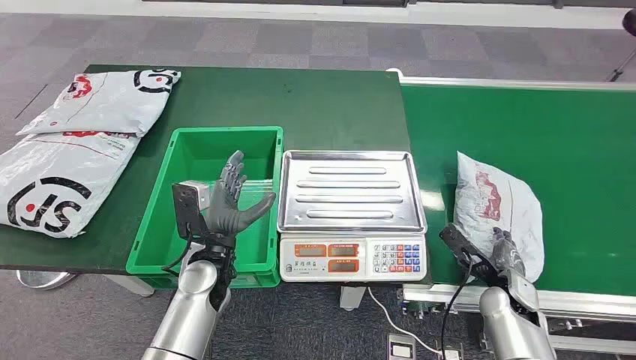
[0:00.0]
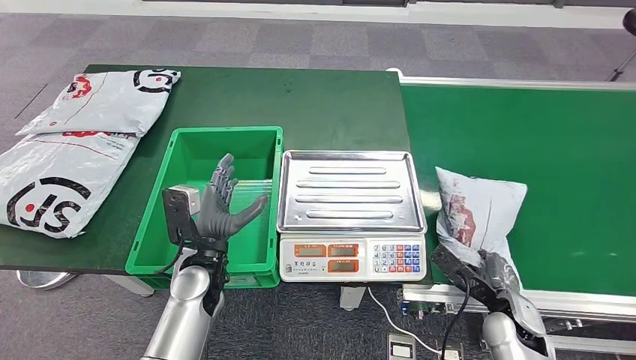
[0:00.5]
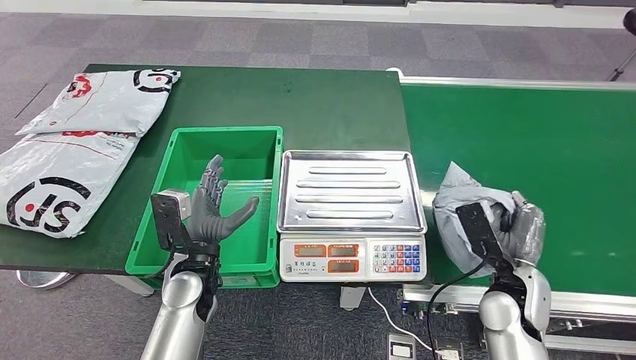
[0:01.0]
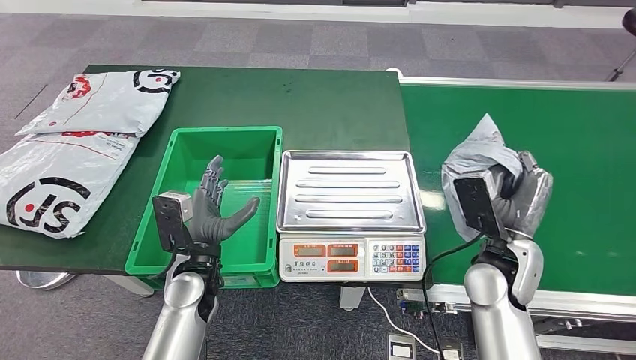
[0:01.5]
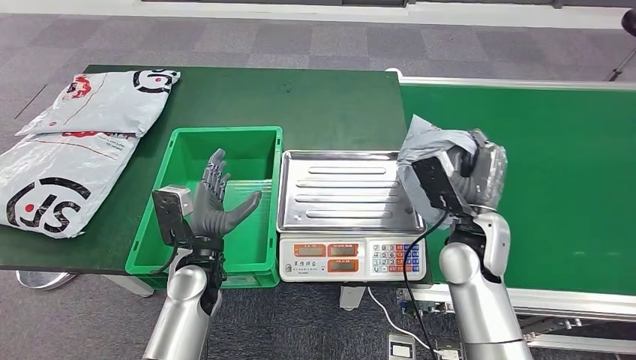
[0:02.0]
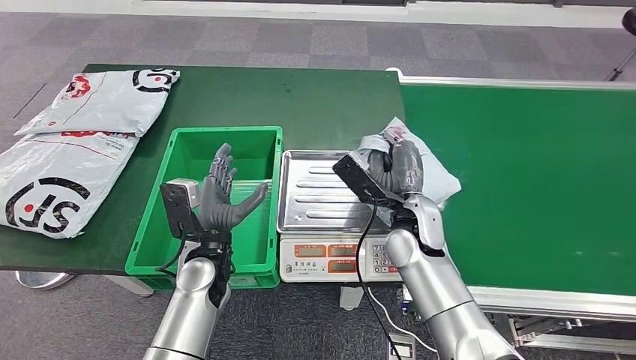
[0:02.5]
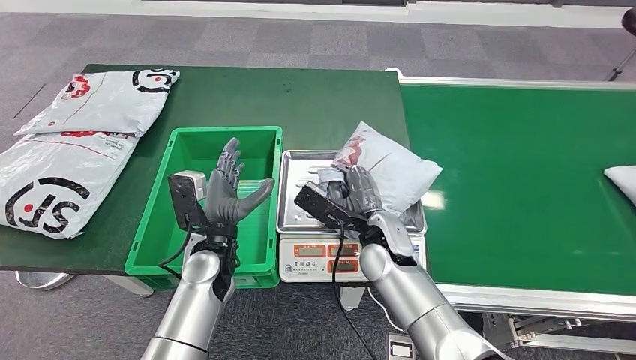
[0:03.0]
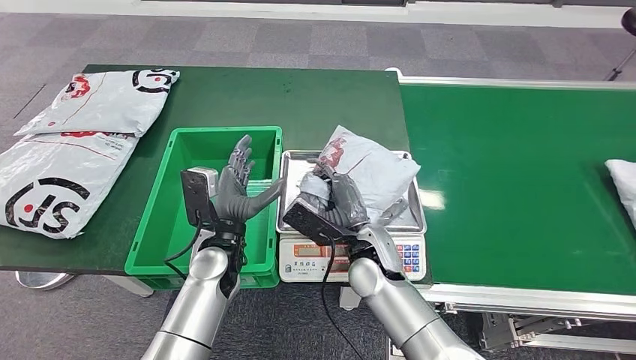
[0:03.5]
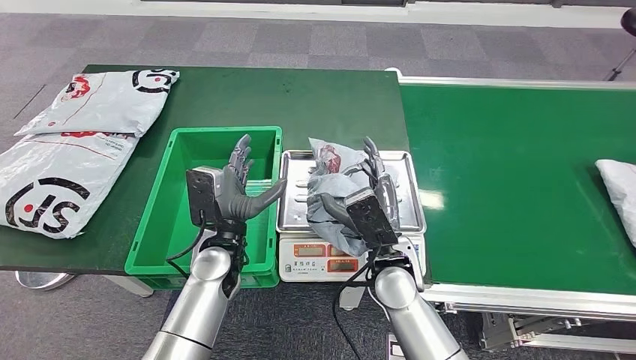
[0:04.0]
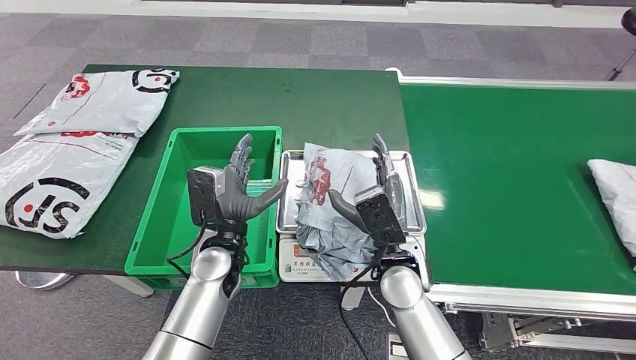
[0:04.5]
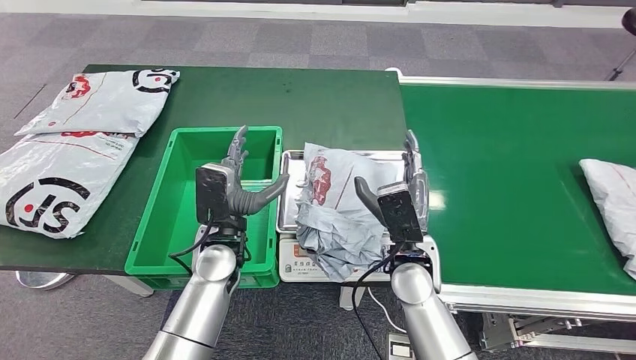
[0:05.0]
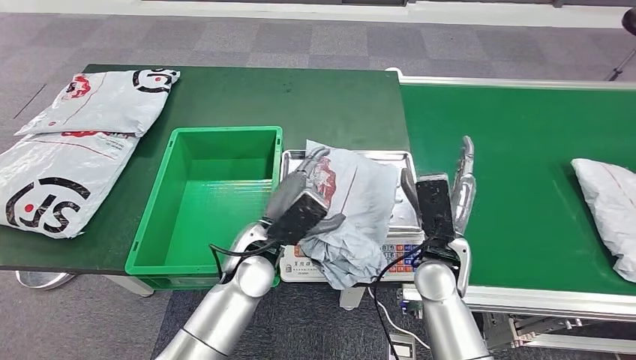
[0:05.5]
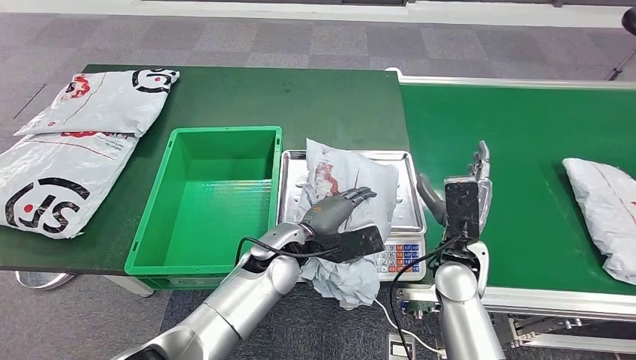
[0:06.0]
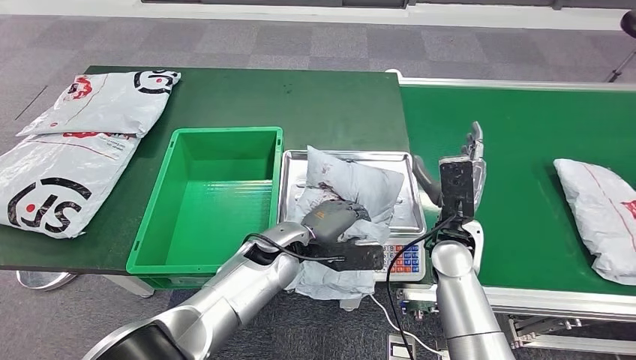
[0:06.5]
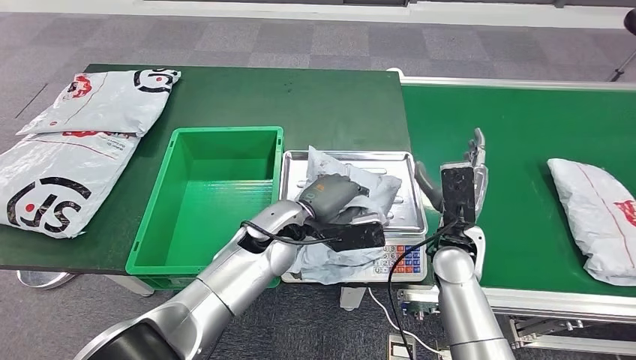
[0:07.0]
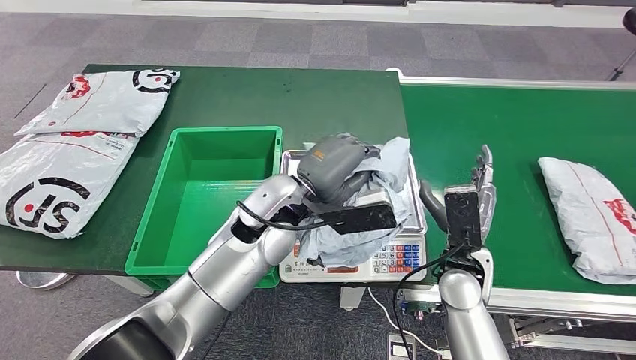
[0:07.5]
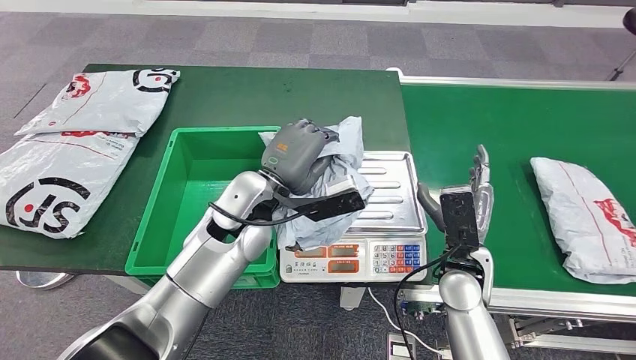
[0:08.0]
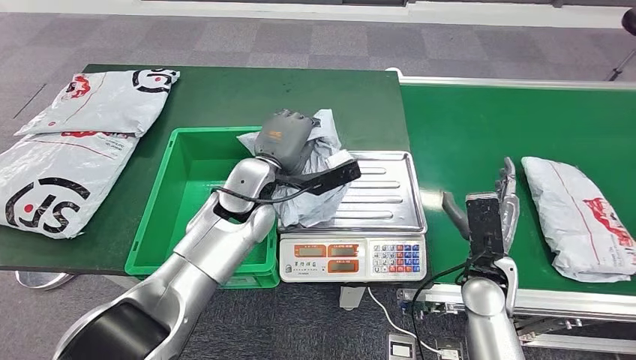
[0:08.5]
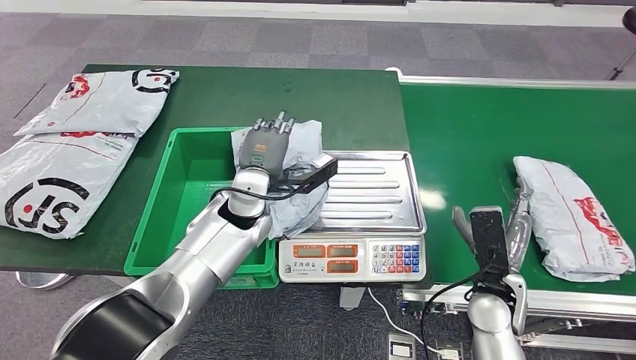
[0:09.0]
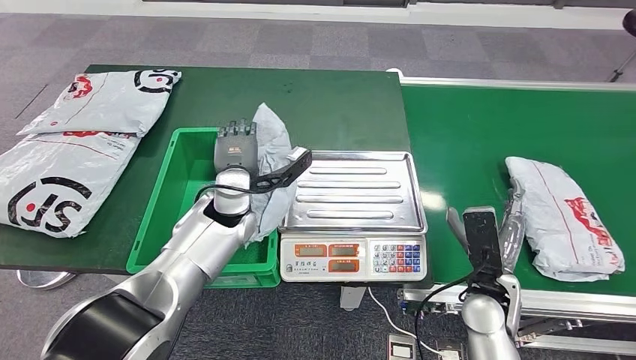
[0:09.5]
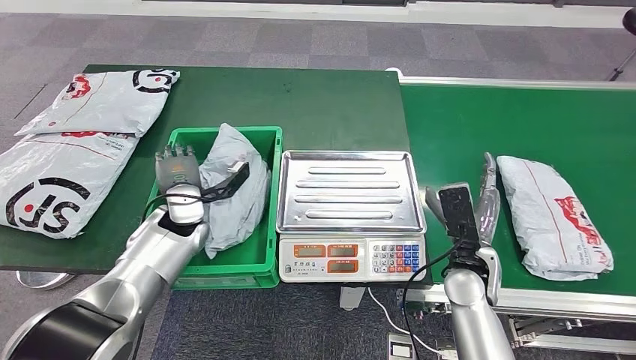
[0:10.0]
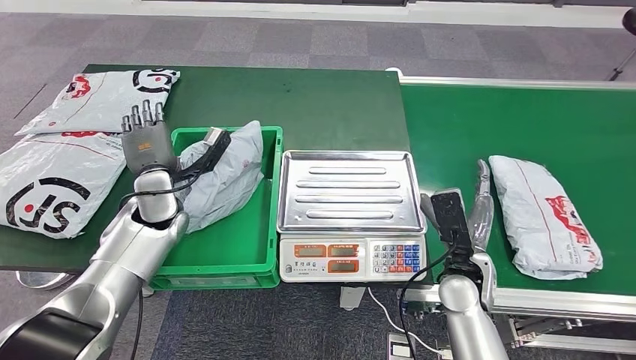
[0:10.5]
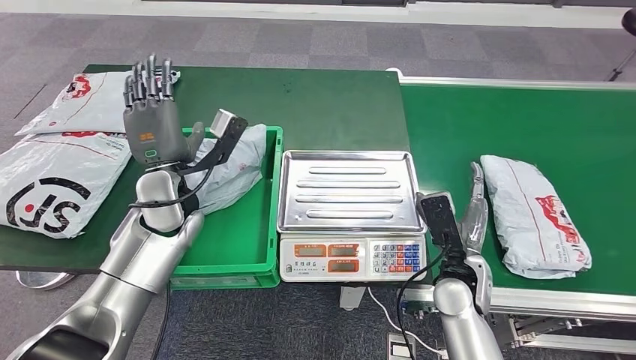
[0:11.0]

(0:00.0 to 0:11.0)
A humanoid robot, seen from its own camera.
Step, 0:00.0 - 0:01.0: Take the parcel off the conveyor belt.
Step, 0:01.5 - 0:04.5: Place the parcel onto the inbound machine.
Step, 0:06.0 - 0:07.5: Pick up the parcel from the inbound machine.
Step, 0:08.0 - 0:11.0: Put the parcel inside the courier box.
